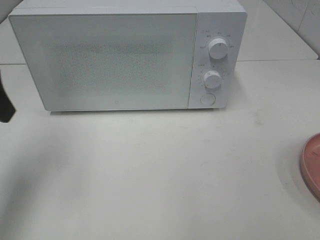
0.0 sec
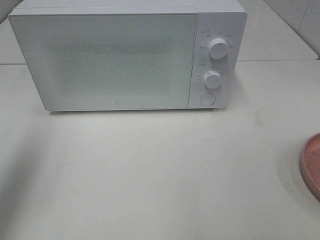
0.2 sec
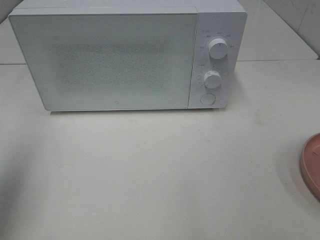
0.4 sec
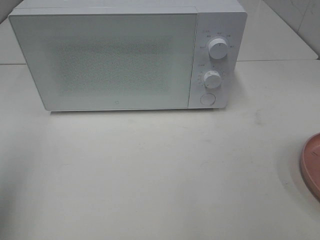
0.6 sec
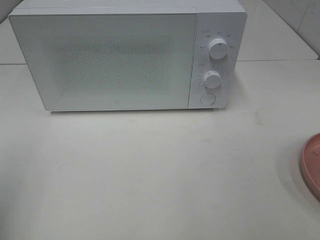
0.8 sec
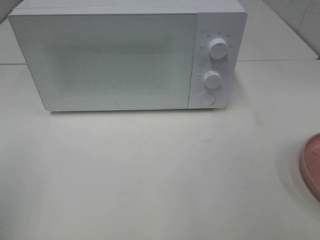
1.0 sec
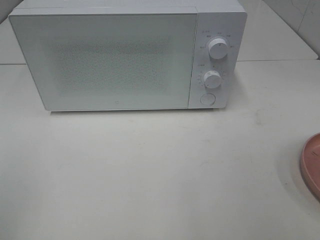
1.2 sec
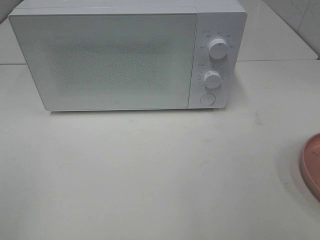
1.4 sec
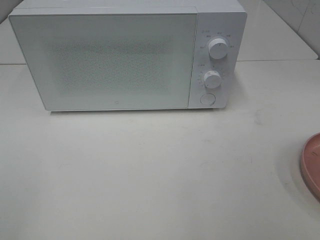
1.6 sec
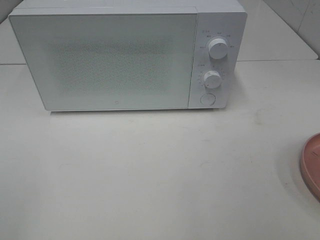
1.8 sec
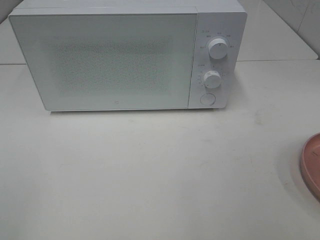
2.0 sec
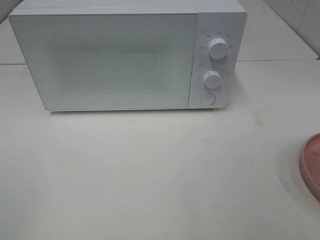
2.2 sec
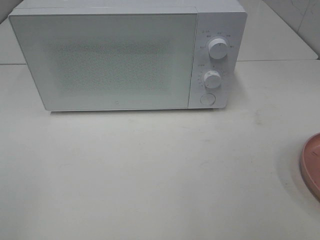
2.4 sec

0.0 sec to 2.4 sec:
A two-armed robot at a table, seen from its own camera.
Task of the whole recording: Heat the burger.
0.0 sec to 1.2 sec: The left gripper travels backward by approximately 20 cm.

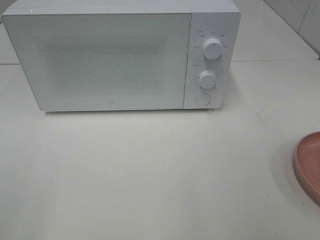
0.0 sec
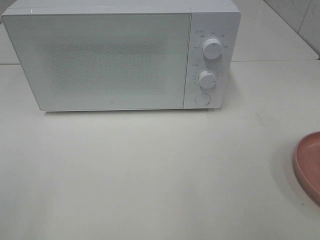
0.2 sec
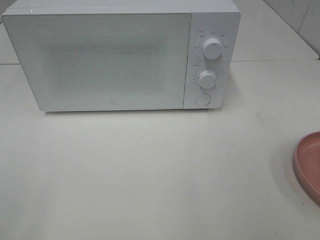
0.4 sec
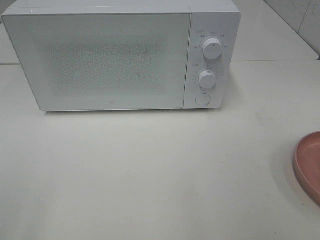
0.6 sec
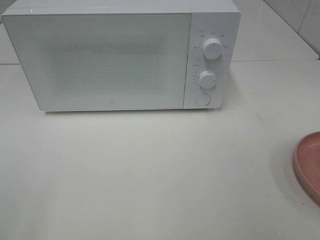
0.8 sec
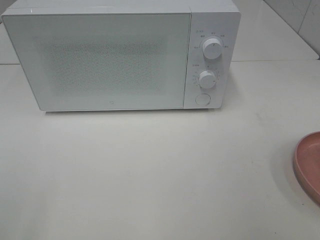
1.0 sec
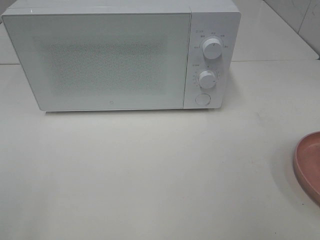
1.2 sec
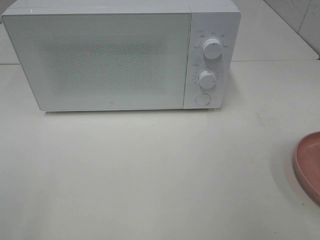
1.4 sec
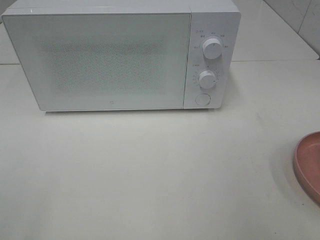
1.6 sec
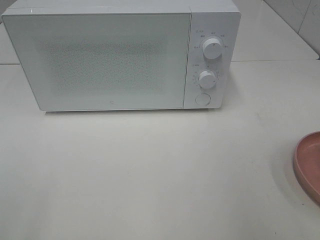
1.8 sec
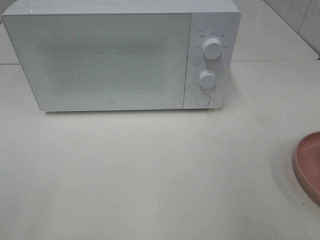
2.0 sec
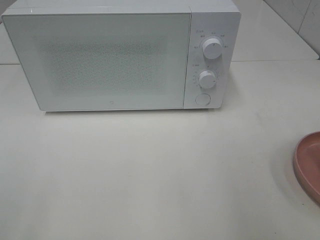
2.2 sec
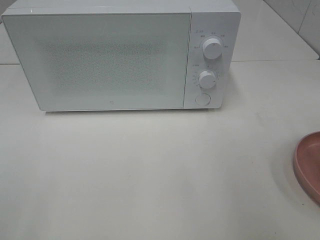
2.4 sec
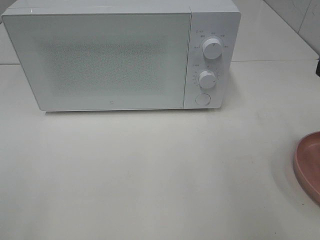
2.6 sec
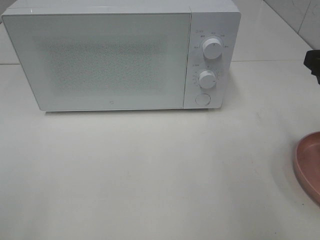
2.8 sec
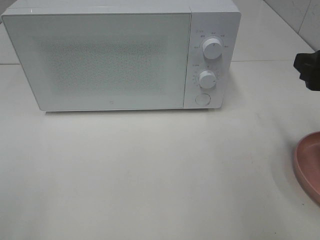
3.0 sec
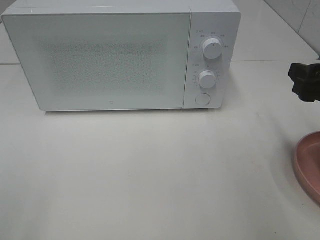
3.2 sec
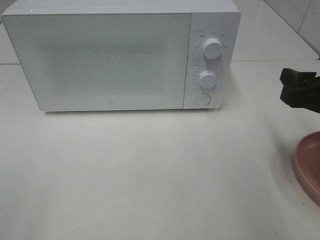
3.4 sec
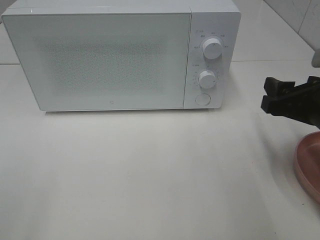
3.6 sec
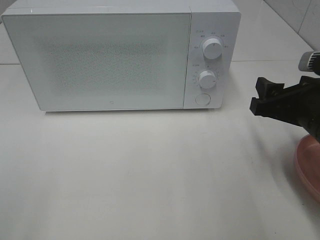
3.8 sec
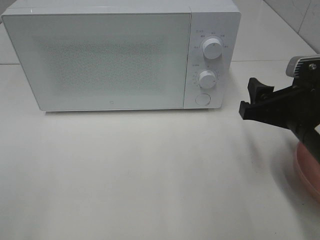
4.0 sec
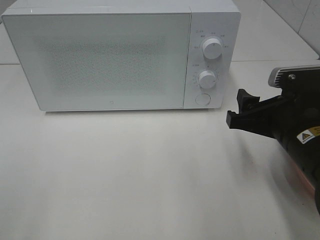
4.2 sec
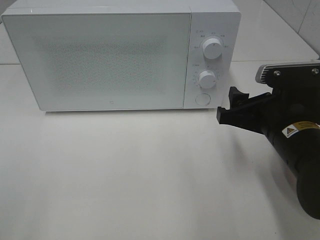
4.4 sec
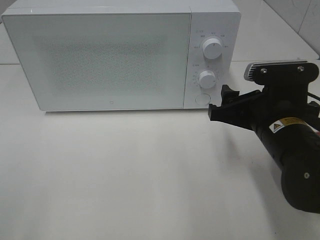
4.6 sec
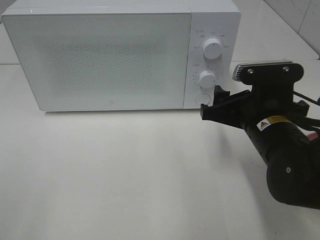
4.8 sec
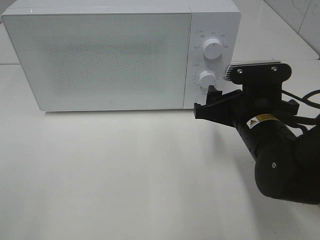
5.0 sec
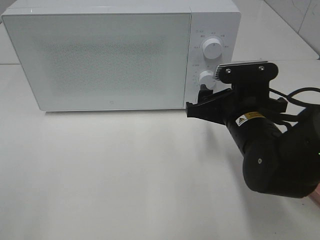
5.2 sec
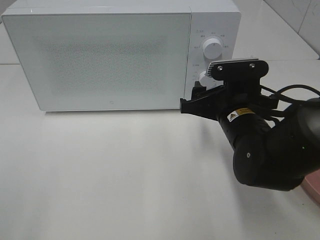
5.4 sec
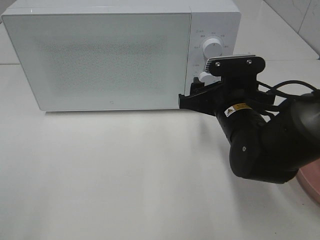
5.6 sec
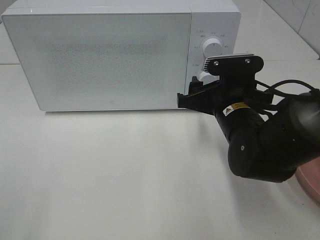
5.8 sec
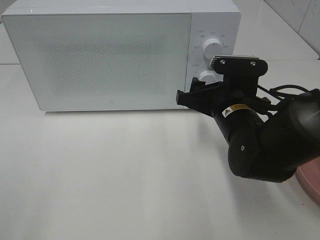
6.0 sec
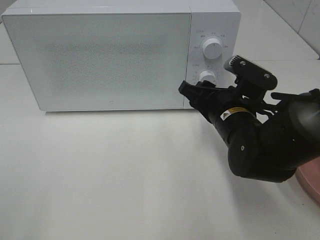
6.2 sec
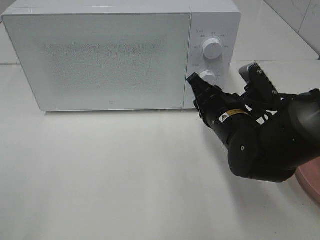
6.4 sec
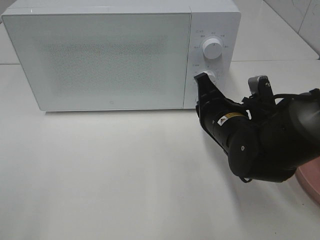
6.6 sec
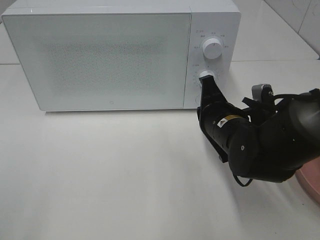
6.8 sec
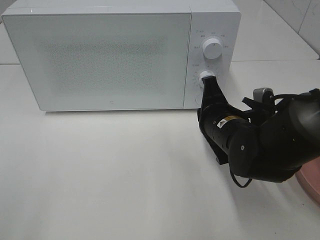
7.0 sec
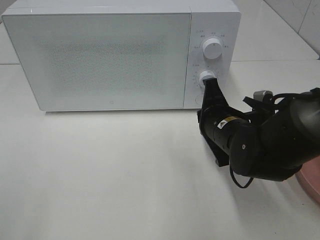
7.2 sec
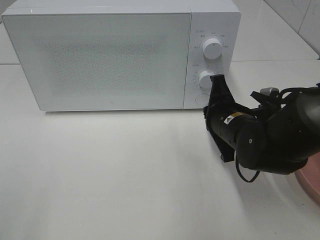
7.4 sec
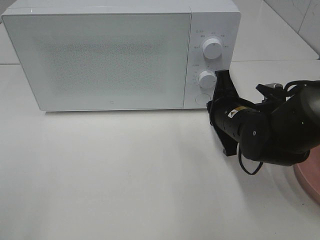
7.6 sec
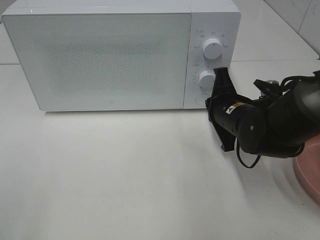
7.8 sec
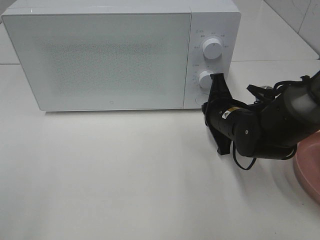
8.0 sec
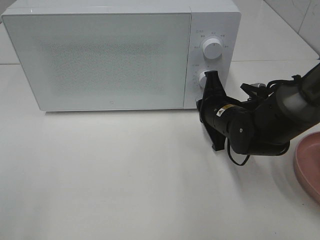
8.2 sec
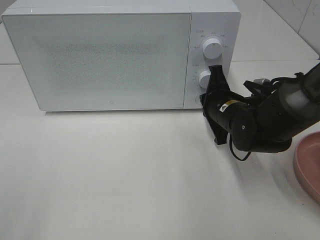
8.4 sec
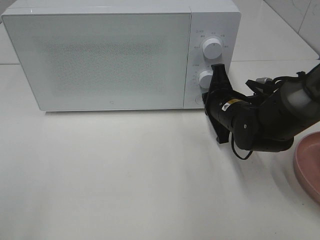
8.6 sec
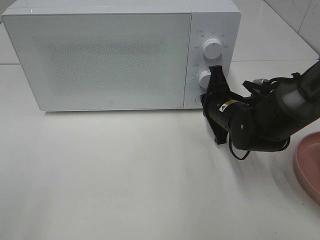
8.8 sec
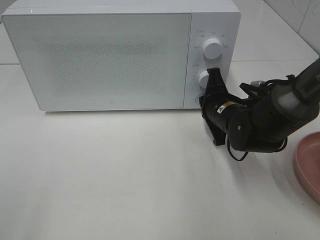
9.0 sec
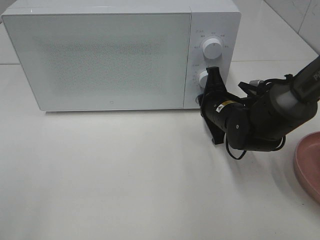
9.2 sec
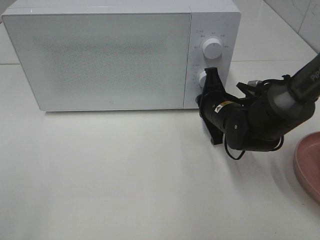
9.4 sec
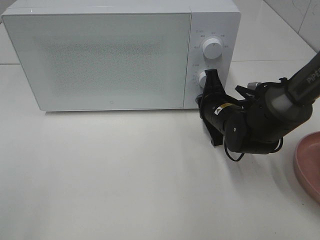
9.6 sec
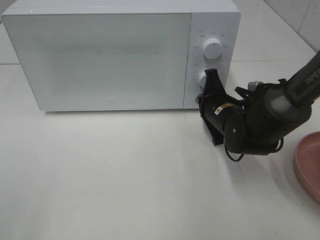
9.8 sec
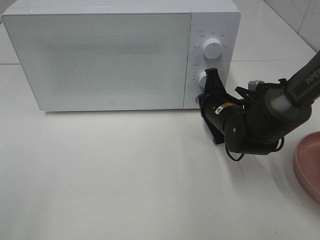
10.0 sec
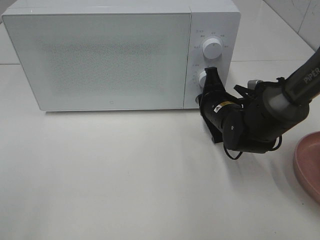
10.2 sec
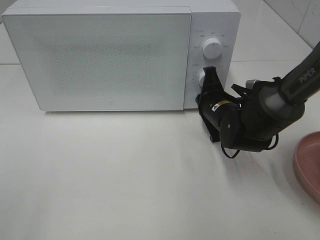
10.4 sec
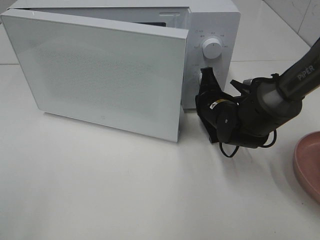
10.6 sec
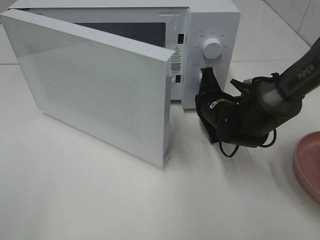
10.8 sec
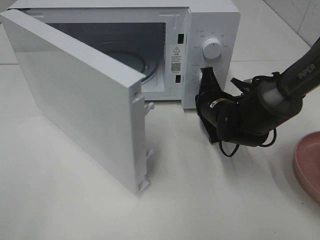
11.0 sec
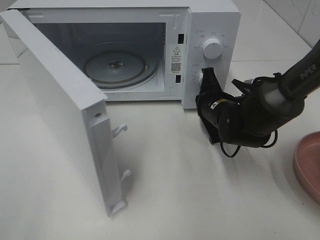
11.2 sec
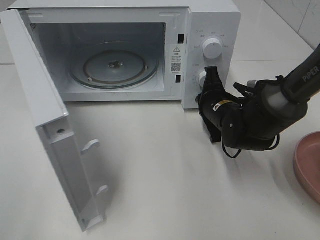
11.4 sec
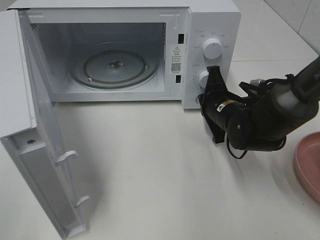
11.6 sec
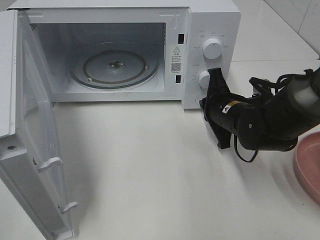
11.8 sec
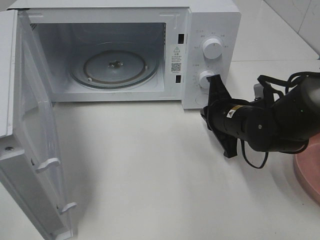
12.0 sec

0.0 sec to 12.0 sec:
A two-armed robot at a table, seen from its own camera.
Task of the whole recording: Heat the burger.
Step, 0.0 sec to 11.6 sec: Right hand: press the switch.
1.6 sec to 3.0 sec: The right gripper travels forward and downward by about 15 cm.
3.0 sec to 4.4 sec: The right gripper travels to the left and downward by approximately 10 cm.
4.4 sec to 6.0 sec: The right gripper is displaced forward and to the left by approximately 10 cm.
6.0 sec to 7.6 sec: The right gripper closes up.
7.6 sec to 9.0 sec: The right gripper shifts by approximately 5 cm.
9.0 sec to 10.4 sec: The grippers stay close to where they were, moving slightly.

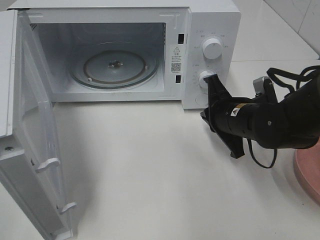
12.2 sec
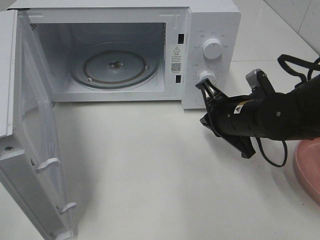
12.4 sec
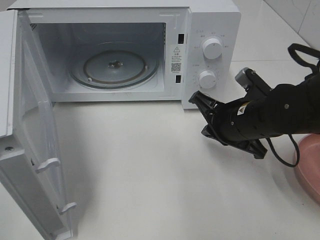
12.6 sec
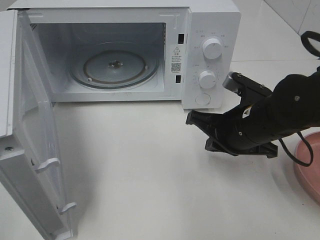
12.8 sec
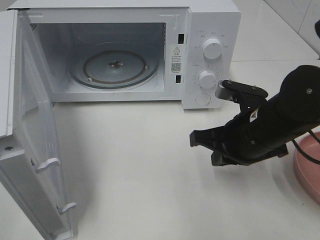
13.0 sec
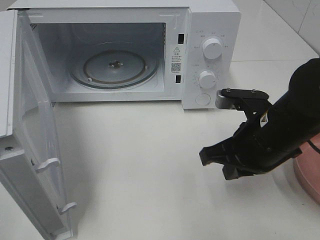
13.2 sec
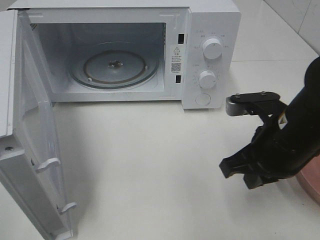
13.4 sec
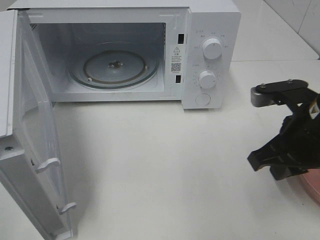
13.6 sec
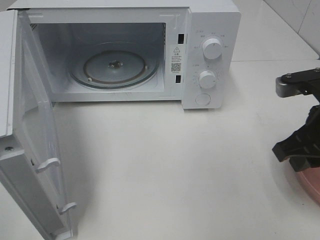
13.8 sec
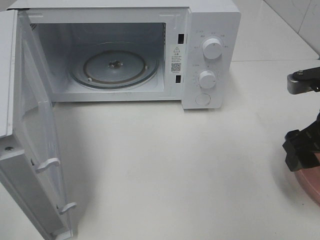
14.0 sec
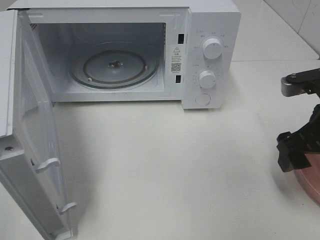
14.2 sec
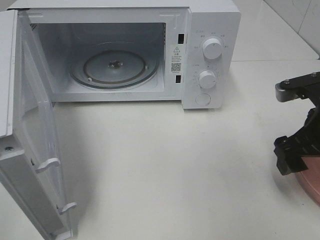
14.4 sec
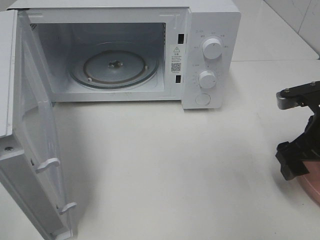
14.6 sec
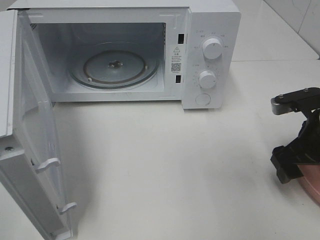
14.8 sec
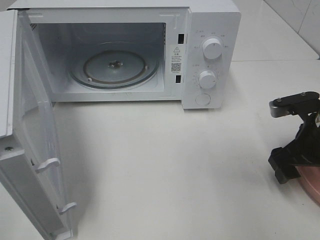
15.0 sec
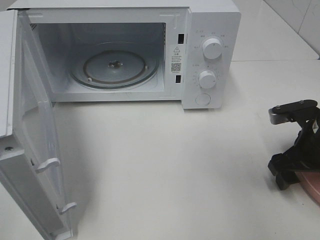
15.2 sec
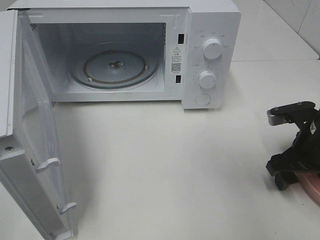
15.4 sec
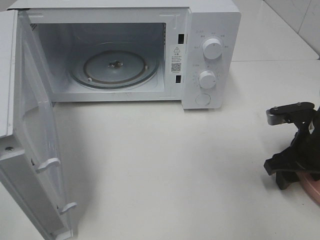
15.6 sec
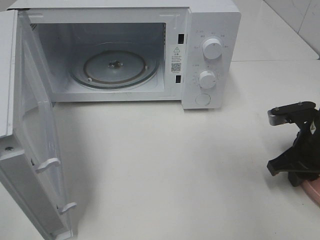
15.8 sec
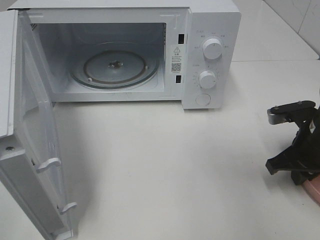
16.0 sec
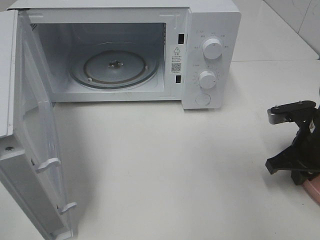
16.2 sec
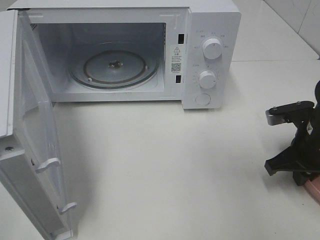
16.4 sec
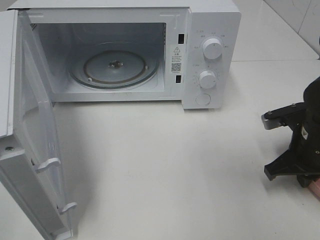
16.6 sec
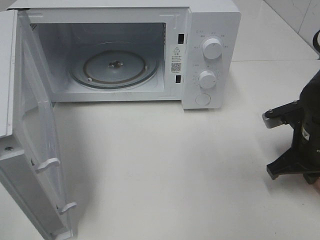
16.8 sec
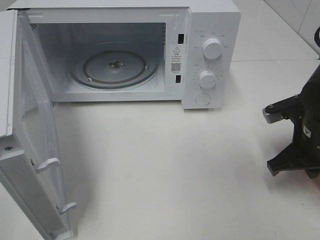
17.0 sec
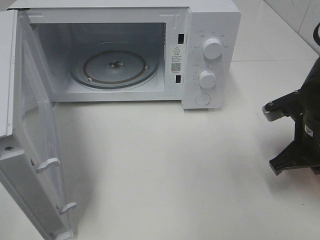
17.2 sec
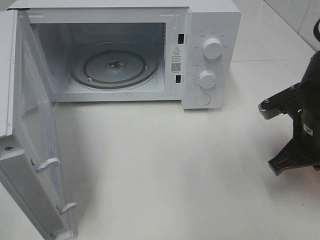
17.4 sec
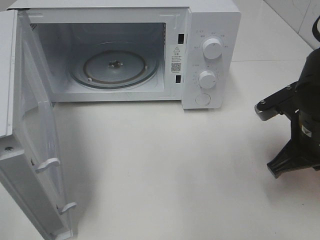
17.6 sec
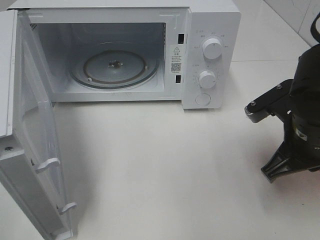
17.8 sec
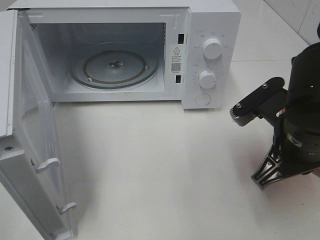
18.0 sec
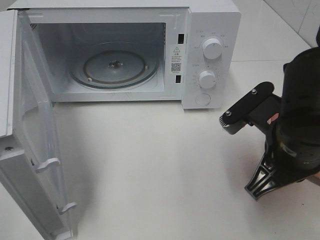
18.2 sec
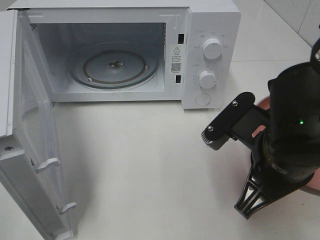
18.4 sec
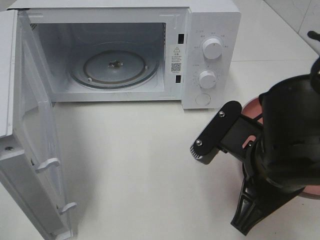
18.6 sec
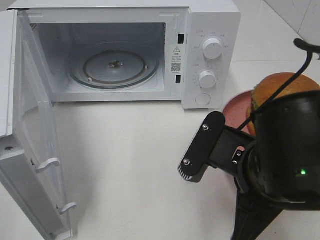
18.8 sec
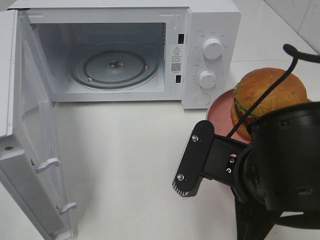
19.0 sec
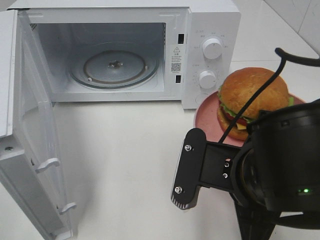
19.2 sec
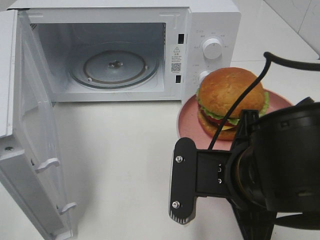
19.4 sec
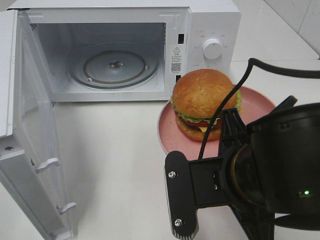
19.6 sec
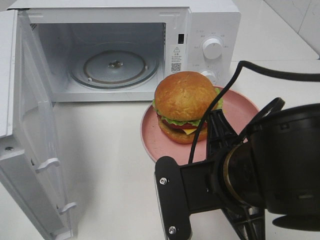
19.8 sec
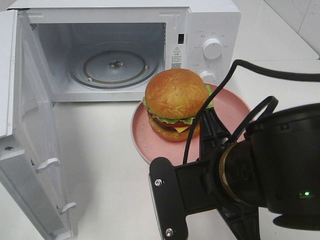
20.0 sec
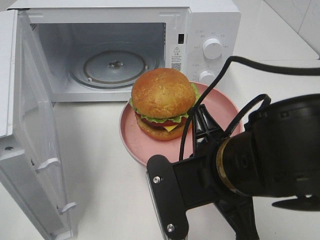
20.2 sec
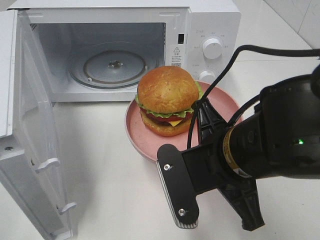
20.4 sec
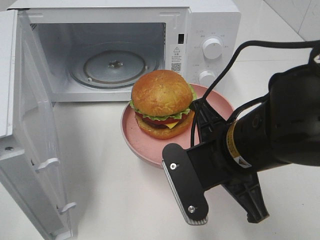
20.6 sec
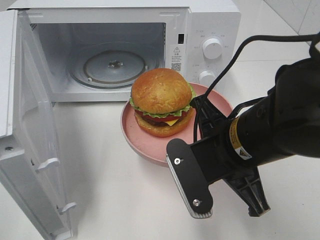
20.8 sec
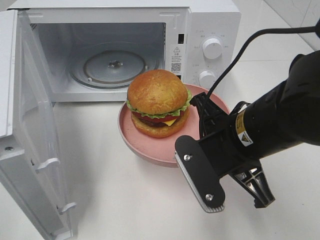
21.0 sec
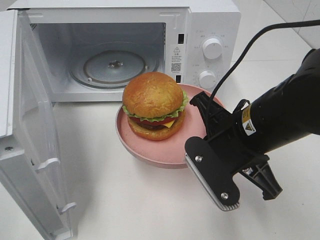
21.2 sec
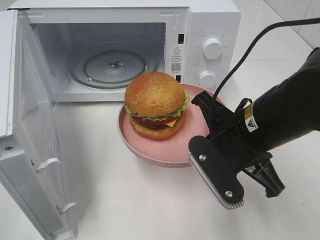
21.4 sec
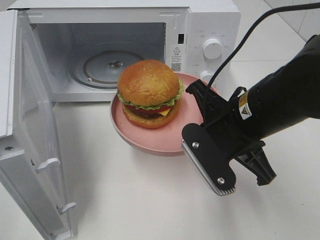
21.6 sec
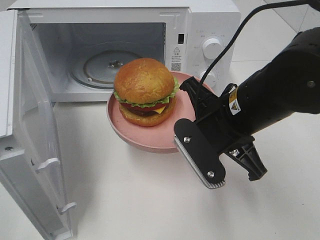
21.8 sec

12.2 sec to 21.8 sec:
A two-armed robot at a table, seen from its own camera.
Task of the whole recording: Heat the burger.
Step, 12.2 sec to 16.6 sec: Right hand: grab the plate with the hamburger.
12.2 sec to 13.8 sec: The right gripper goes roughly 15 cm upward, to the right and backward, and opens.
13.8 sec to 15.4 sec: The right gripper goes approximately 10 cm downward, and opens its fingers.
15.4 sec to 17.0 sec: The right gripper closes.
17.0 sec to 18.6 sec: The right gripper shifts some 15 cm to the left, backward and upward.
20.2 sec to 21.8 sec: The right gripper heads forward, covering roughly 10 cm.
